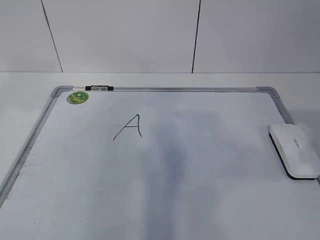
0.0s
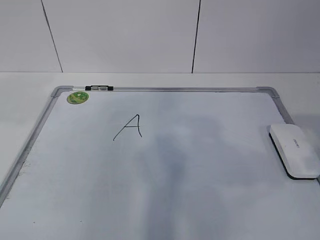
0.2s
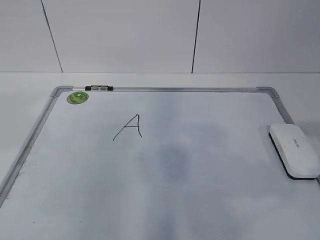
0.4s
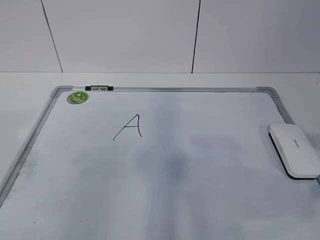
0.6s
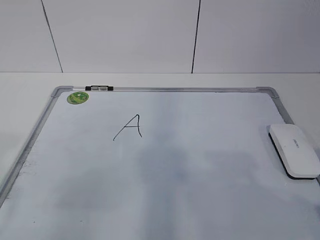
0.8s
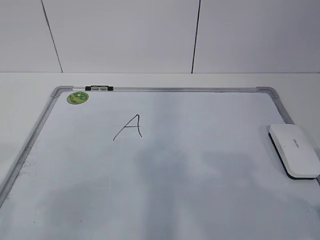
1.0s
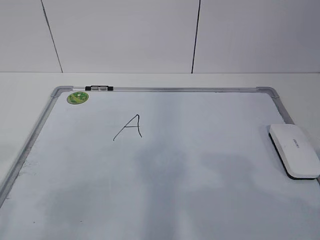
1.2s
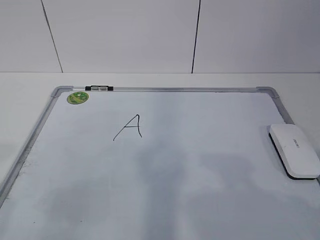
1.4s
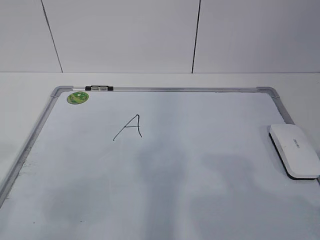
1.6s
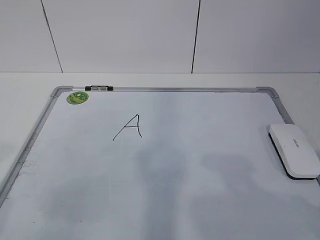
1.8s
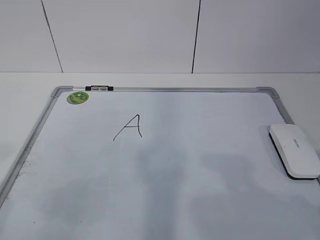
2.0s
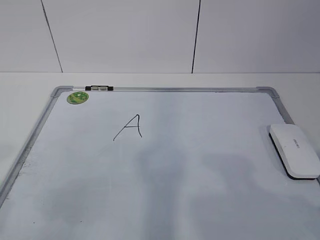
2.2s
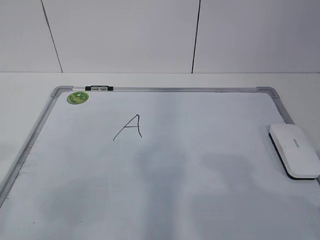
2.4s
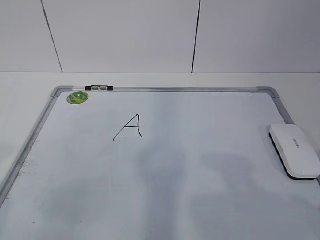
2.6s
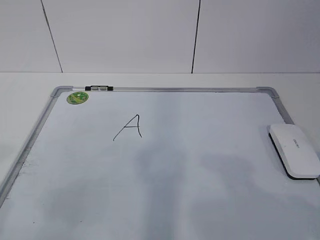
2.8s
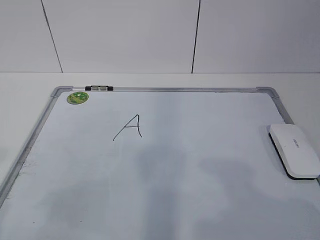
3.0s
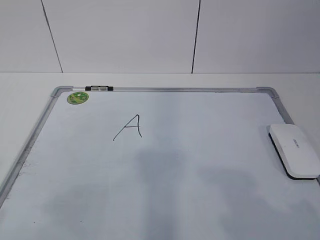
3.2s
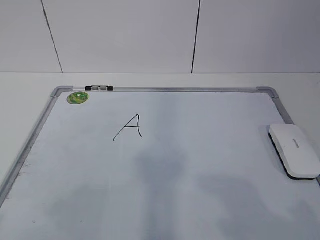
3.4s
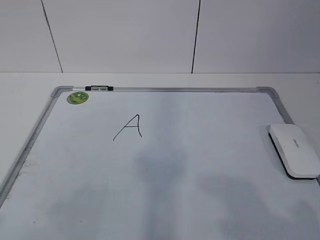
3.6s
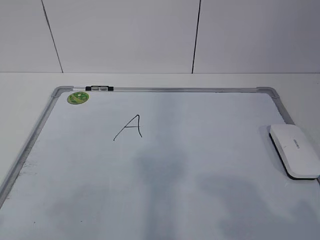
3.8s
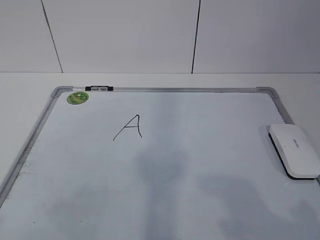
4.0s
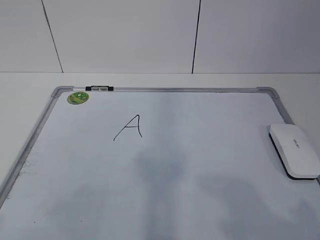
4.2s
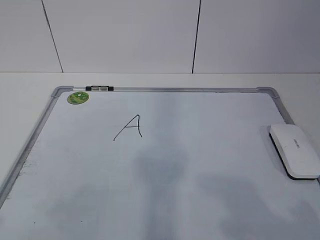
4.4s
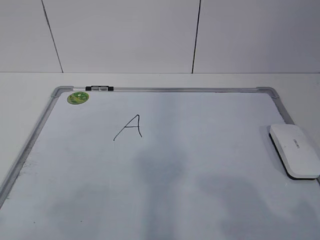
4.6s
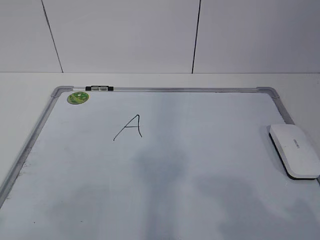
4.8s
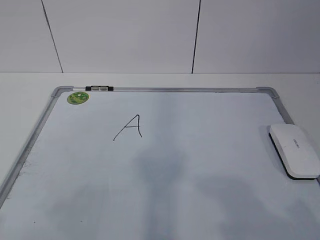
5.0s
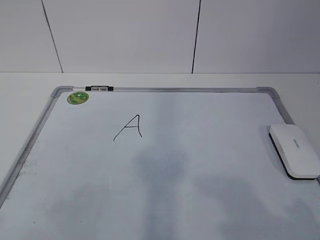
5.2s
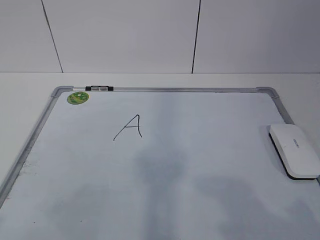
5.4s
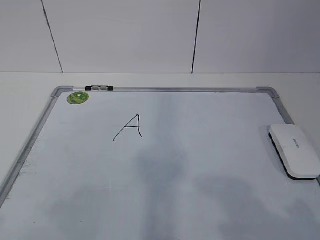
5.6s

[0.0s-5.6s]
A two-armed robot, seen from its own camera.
Task of the whole recording: pick up the eraser on the blackboard and erase the letter "a".
0.0s to 1.4s: The right gripper moves backward, about 10 cm. Meanwhile the left gripper shifts about 20 cm backward.
1.4s to 2.8s: Neither gripper changes place.
4.2s to 5.6s: The two grippers keep their place.
